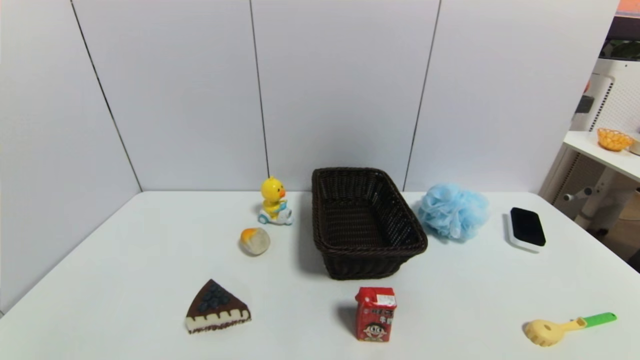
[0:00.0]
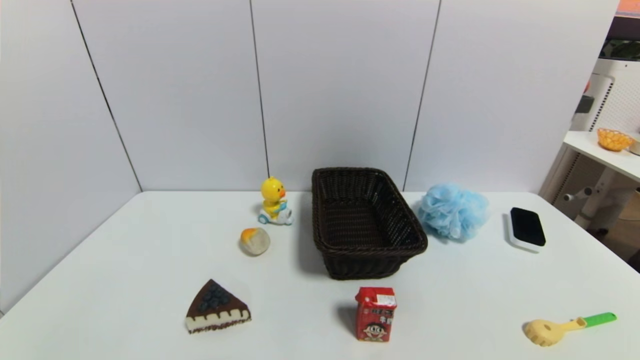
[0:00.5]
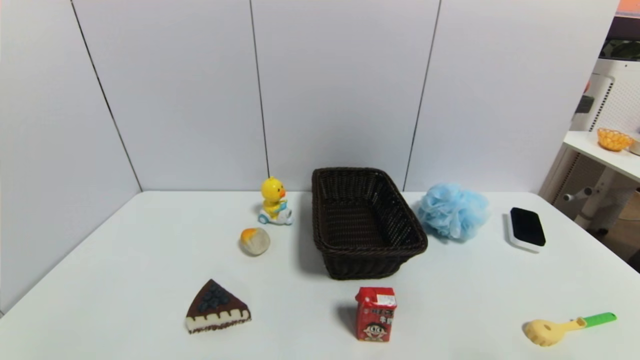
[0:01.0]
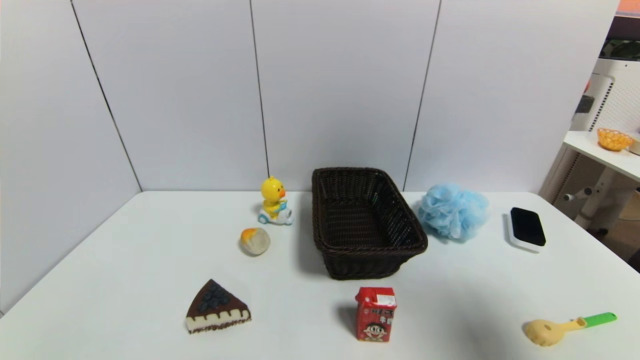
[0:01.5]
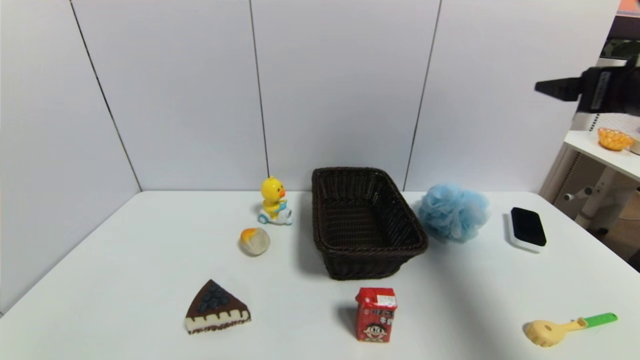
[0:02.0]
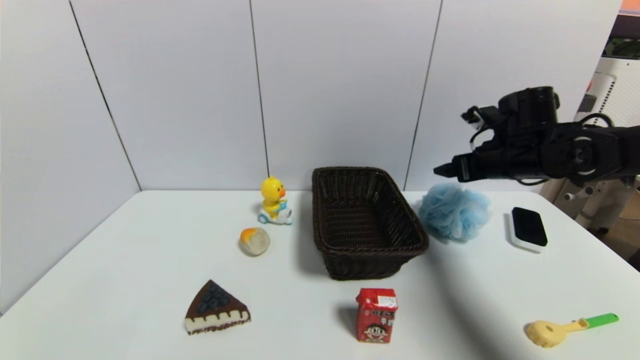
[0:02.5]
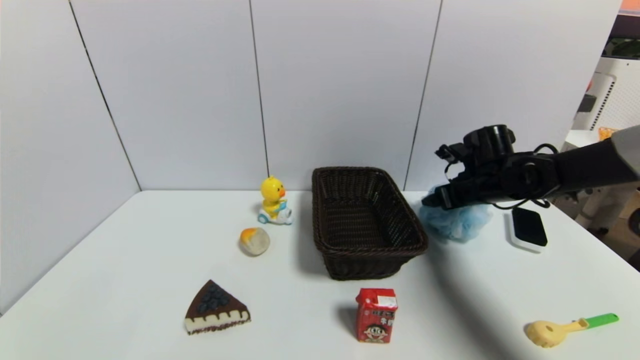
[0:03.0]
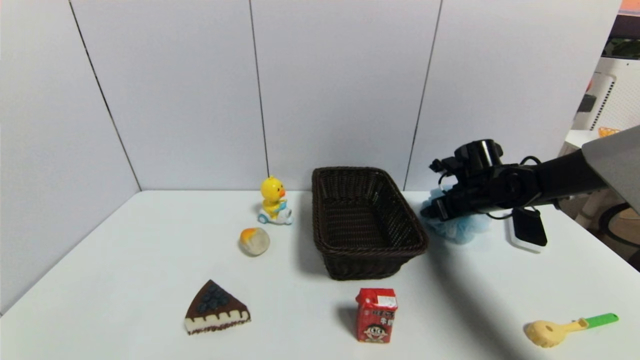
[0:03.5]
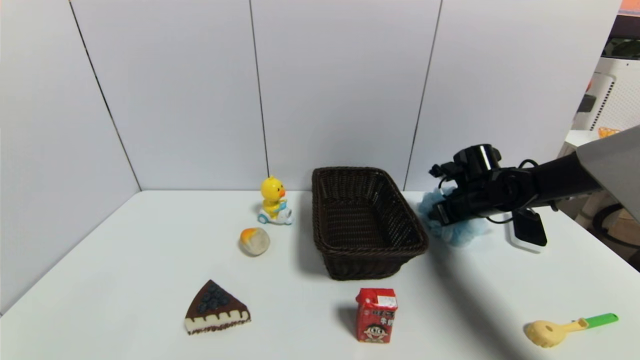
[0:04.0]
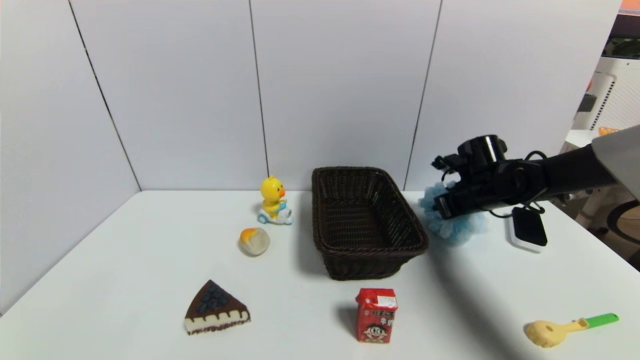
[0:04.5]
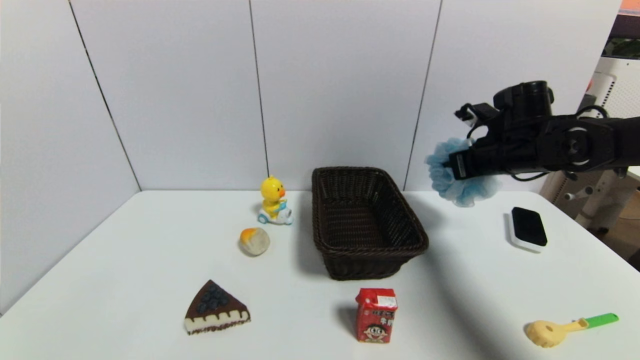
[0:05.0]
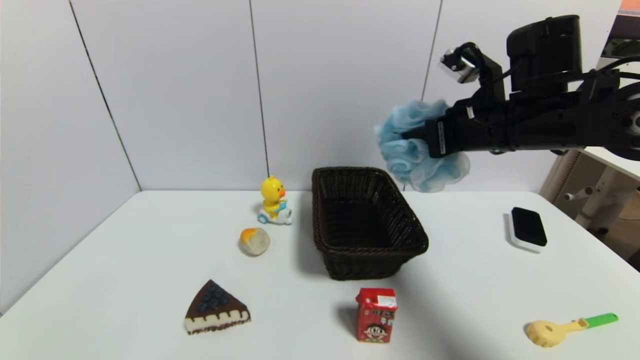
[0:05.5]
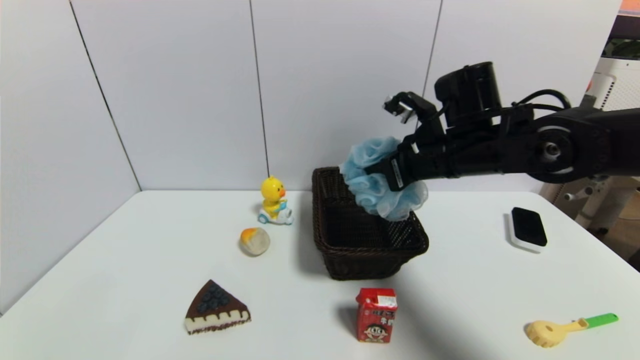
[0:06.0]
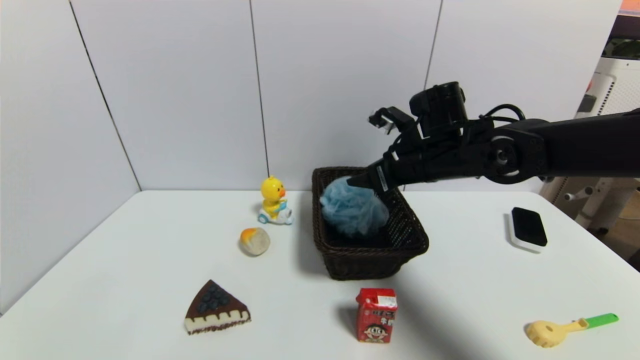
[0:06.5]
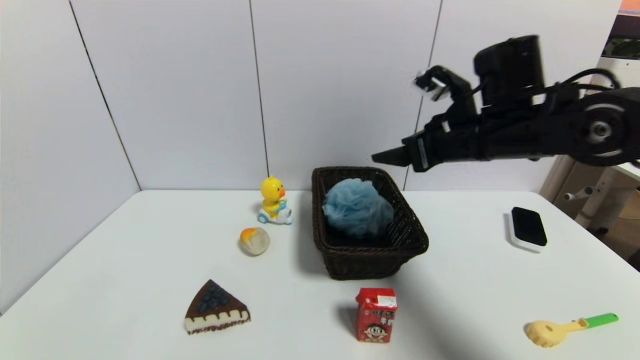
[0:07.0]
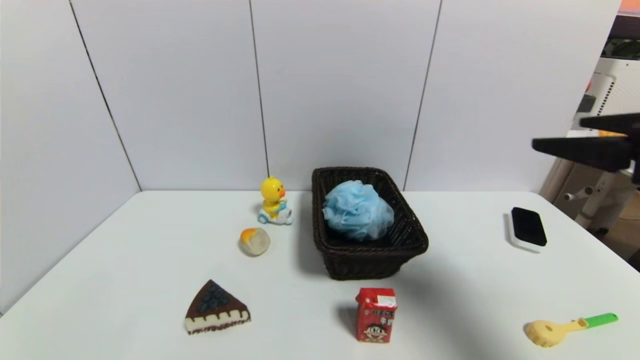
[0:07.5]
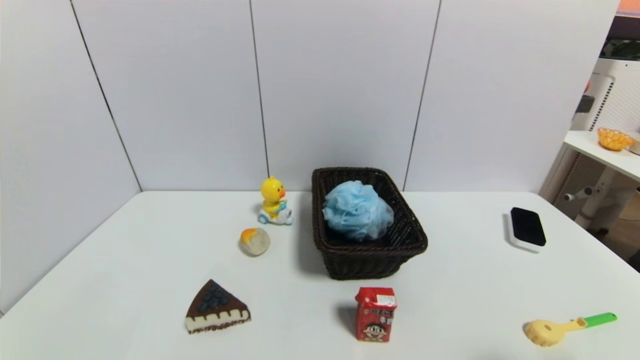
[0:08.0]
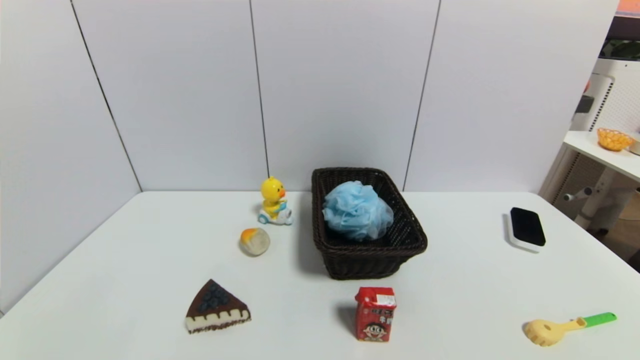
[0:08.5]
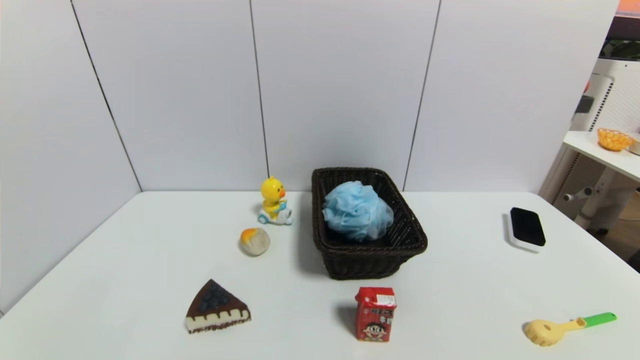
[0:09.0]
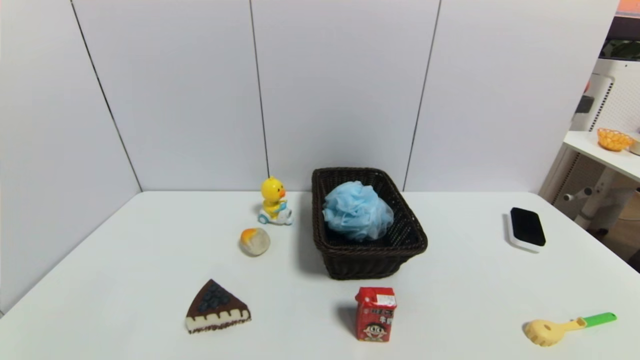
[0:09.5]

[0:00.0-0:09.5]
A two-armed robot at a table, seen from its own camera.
Task of the whole recording: use a gripper to pick the target object and place on the brown basket.
Step, 0:00.0 to 0:04.0: Grasp the shower sphere with the right gripper.
Step, 0:04.5 to 0:06.5: Place the shower sphere into the basket with the right gripper.
0:00.0 to 0:02.0: The right gripper is displaced forward and upward by about 35 cm.
0:02.0 to 0:04.0: The right gripper shifts about 30 cm downward and forward, and closes up.
0:04.0 to 0:05.5: The right gripper moves upward, backward and to the left, about 25 cm, and closes.
0:05.5 to 0:07.5: The right gripper is displaced backward and to the right by roughly 20 cm, and opens its fingers.
0:07.5 to 0:09.5: The right gripper shifts about 30 cm downward and backward.

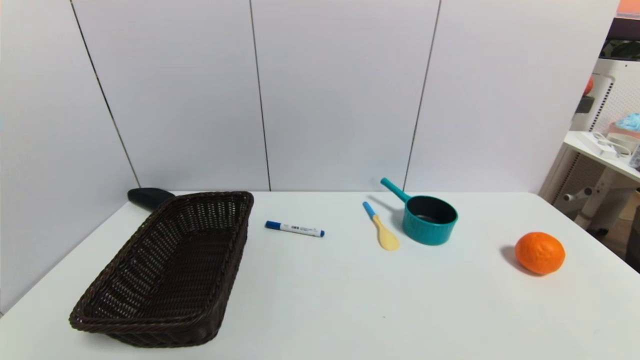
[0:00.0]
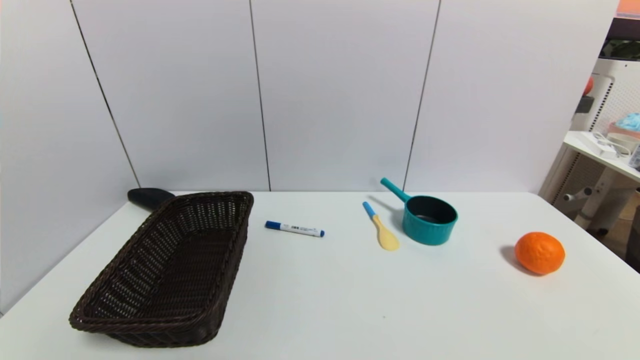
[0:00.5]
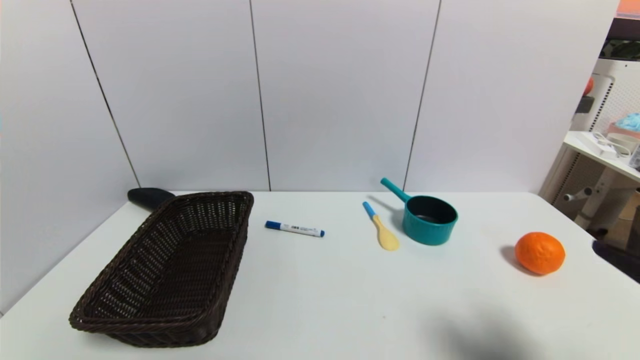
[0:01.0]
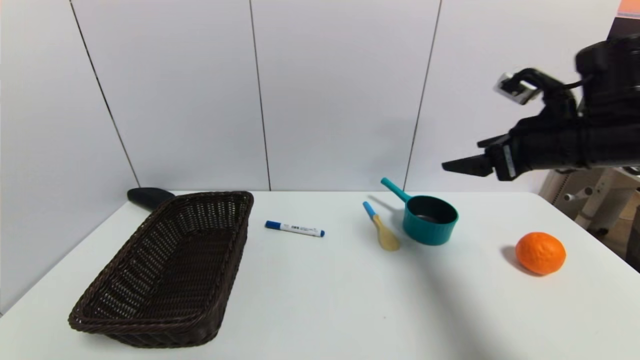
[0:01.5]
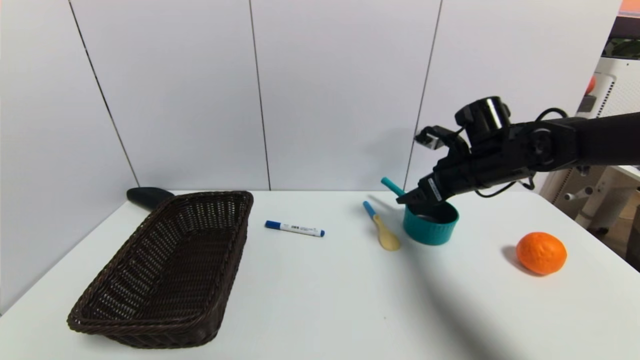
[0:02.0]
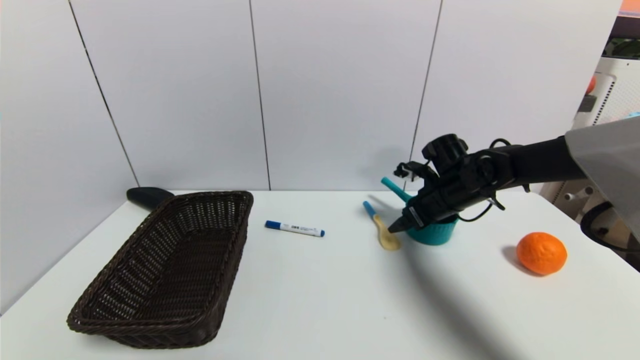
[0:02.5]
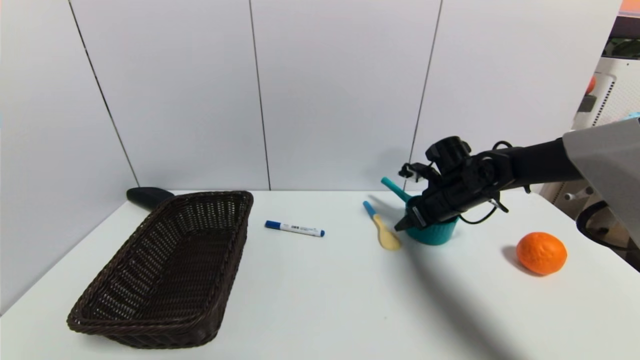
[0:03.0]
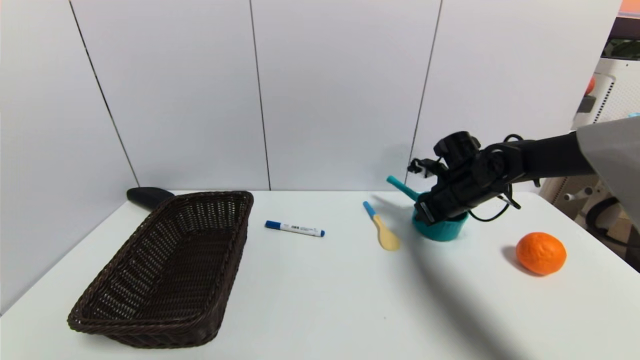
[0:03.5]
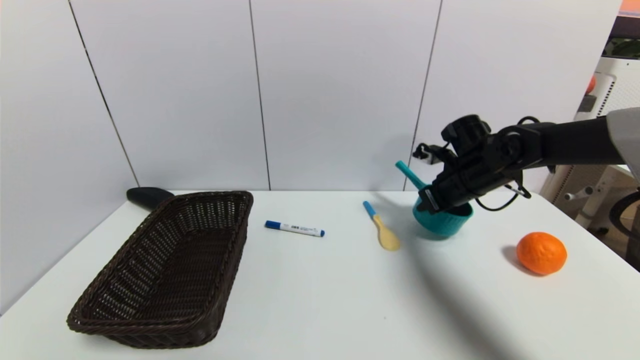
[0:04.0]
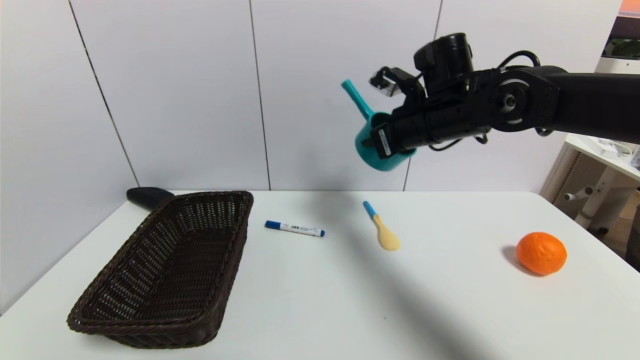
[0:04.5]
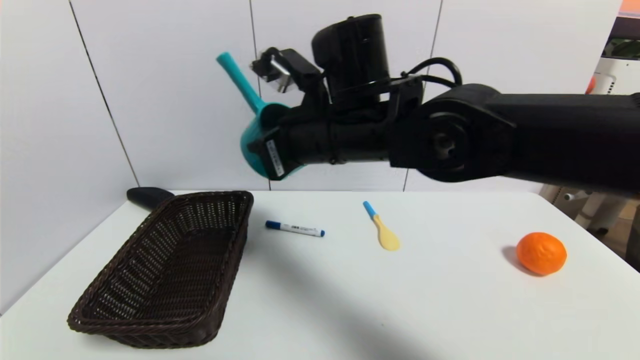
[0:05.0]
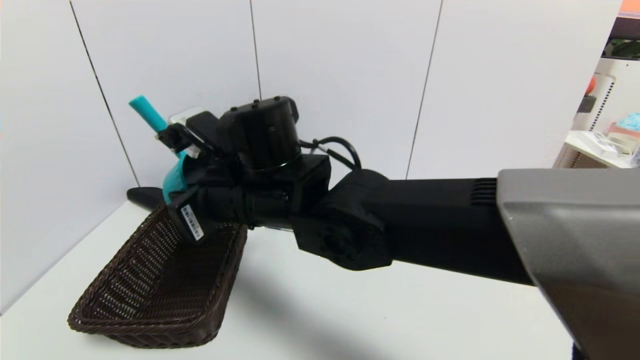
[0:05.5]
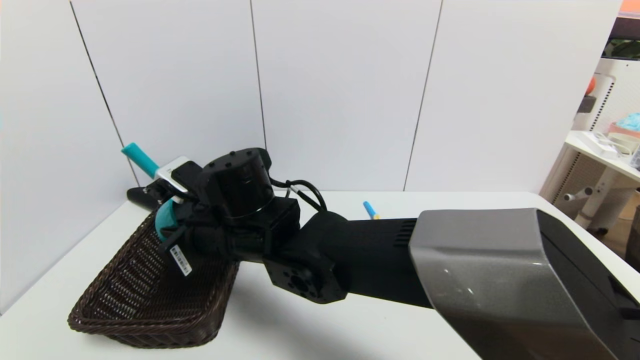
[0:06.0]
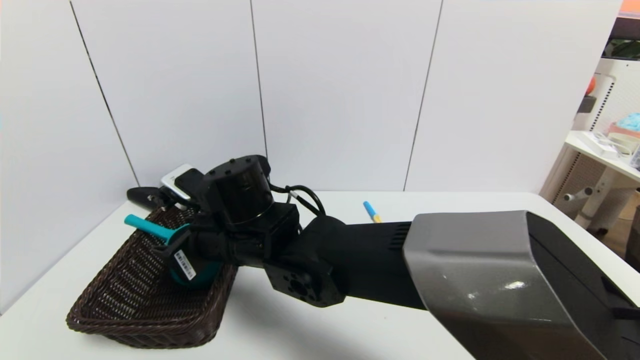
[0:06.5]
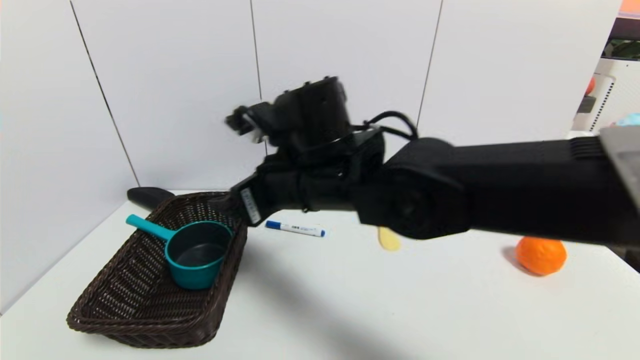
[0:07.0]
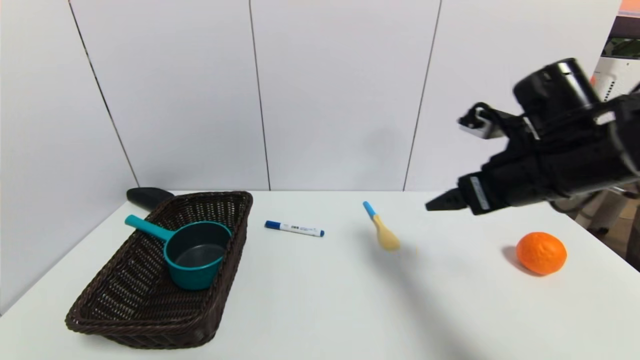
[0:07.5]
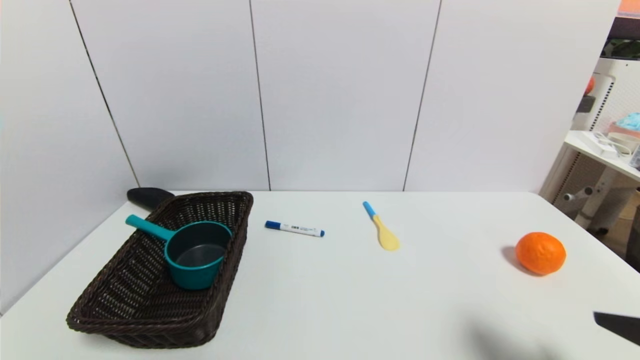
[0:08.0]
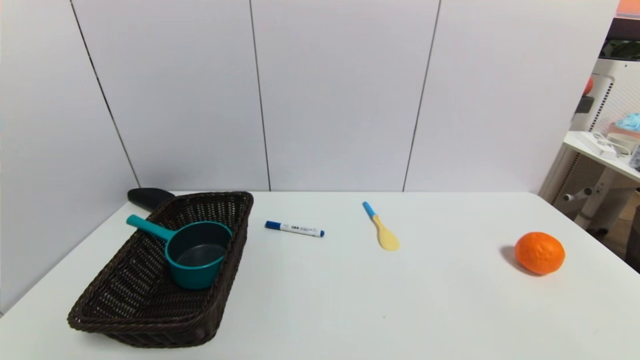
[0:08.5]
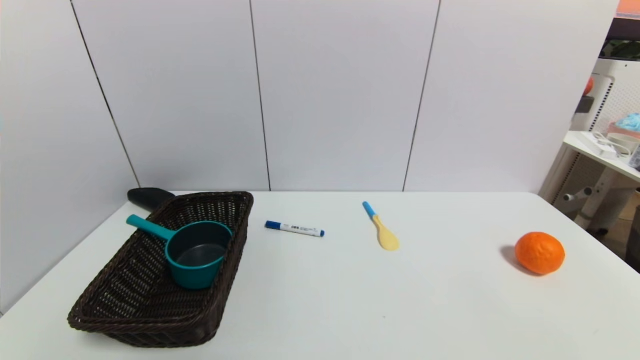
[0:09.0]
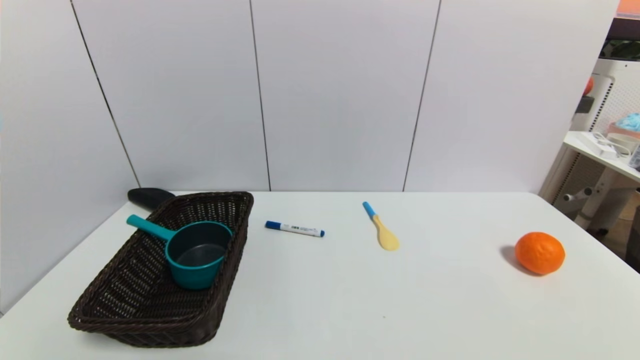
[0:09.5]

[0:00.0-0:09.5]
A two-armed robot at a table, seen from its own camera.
Task of the whole recording: use a gripper to pick the target object and place on the brown basket.
Step, 0:00.0 to 0:03.5: Grasp the blue pot with the right gripper.
Step, 0:04.0 to 0:06.5: Place the blue pot into the basket with the right gripper.
0:00.0 to 0:02.0: The right gripper is displaced forward by some 40 cm.
0:02.0 to 0:04.0: The right gripper closes its fingers.
0:04.0 to 0:05.5: The right gripper moves to the left and backward, roughly 35 cm.
0:05.5 to 0:07.5: The right gripper is displaced to the right by roughly 30 cm, and opens its fingers.
0:07.5 to 0:09.5: The right gripper shifts roughly 35 cm backward and downward.
